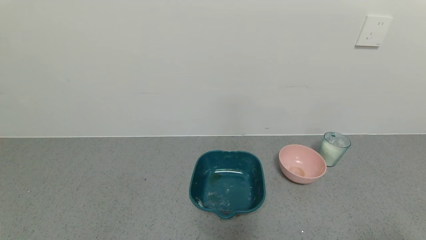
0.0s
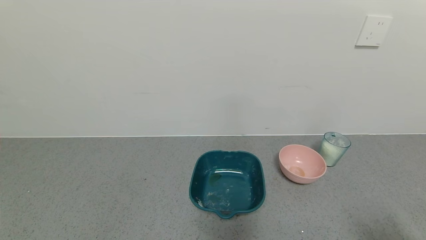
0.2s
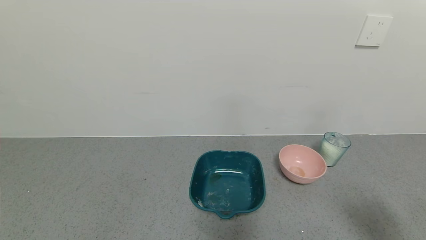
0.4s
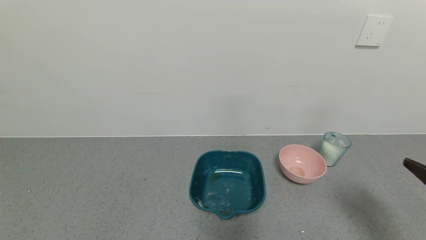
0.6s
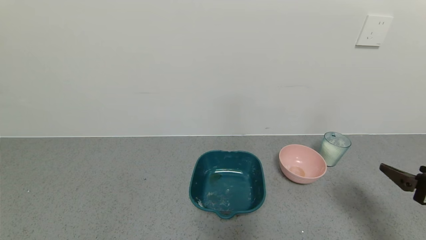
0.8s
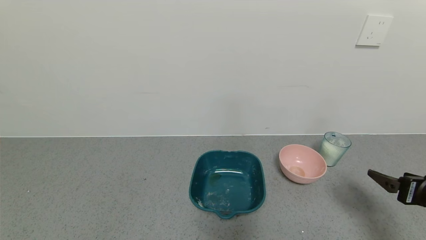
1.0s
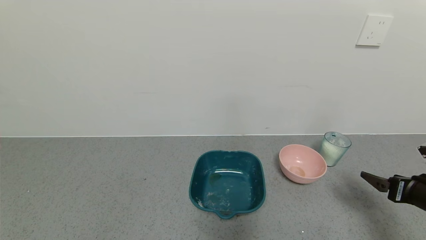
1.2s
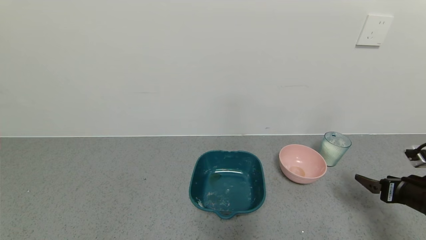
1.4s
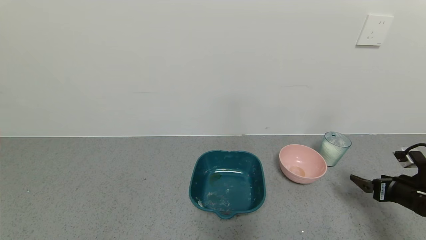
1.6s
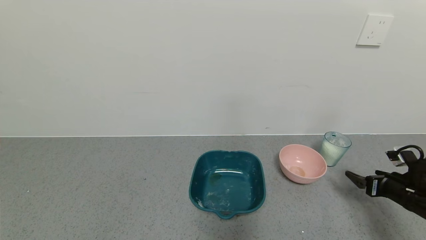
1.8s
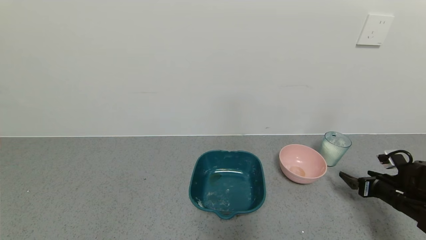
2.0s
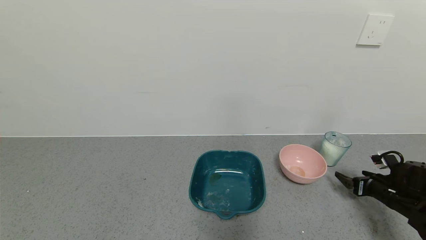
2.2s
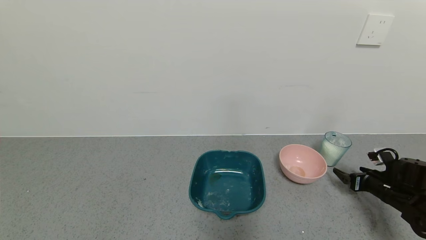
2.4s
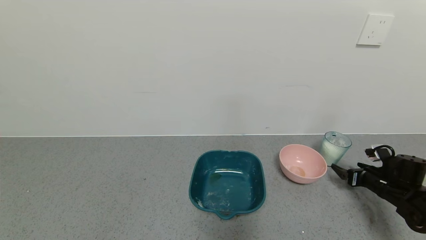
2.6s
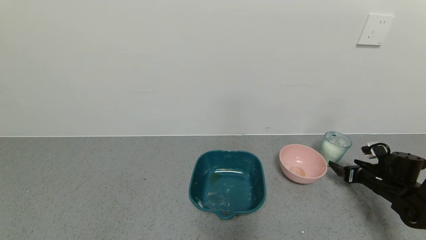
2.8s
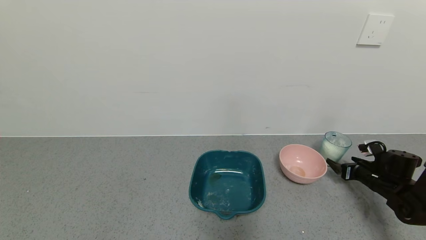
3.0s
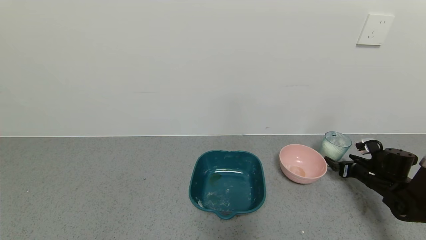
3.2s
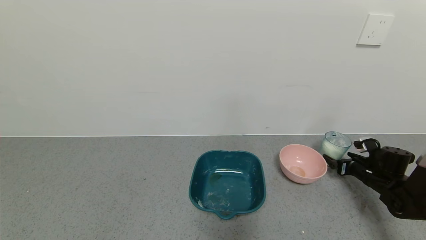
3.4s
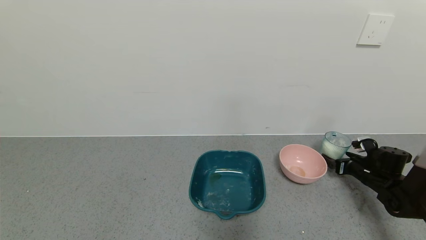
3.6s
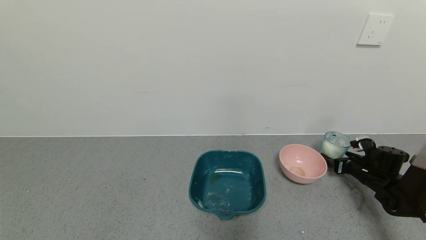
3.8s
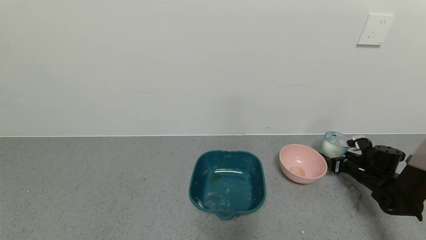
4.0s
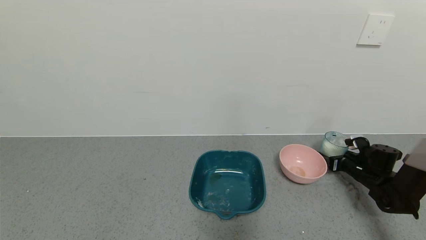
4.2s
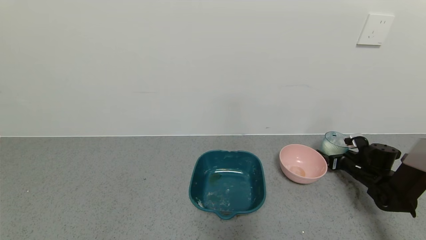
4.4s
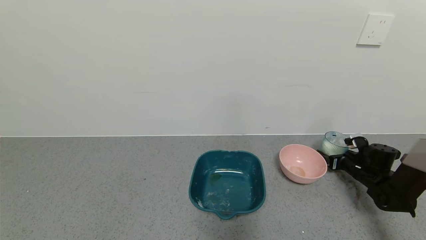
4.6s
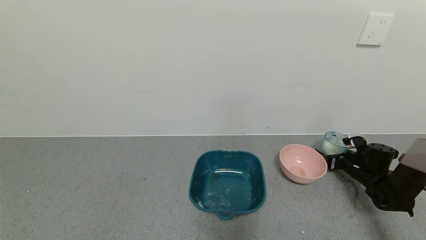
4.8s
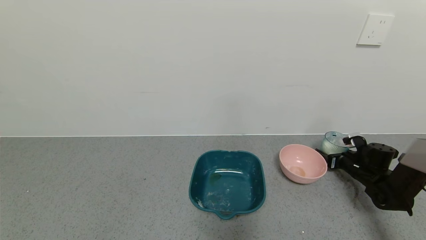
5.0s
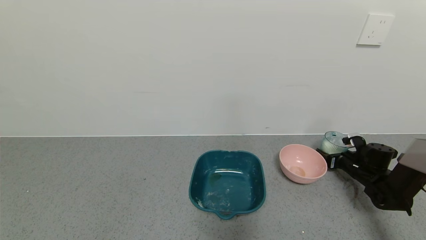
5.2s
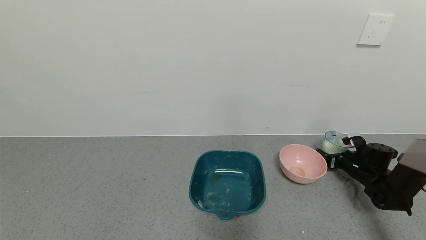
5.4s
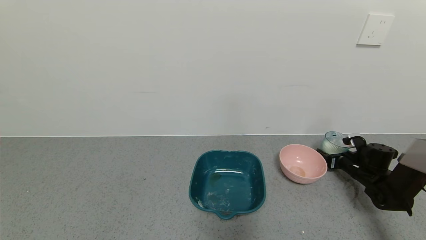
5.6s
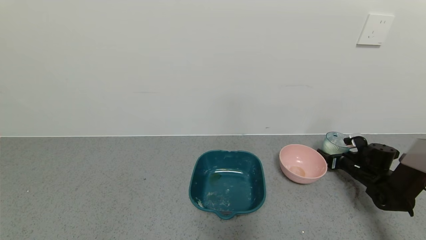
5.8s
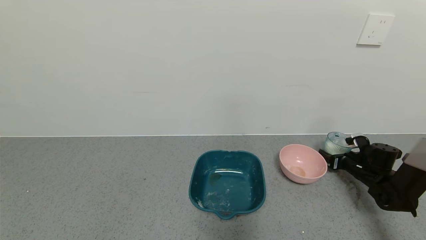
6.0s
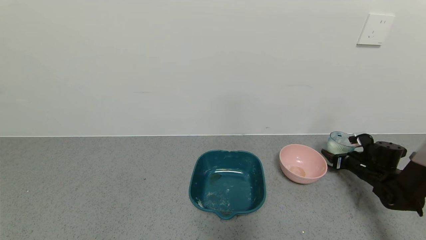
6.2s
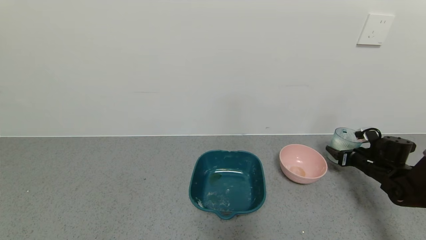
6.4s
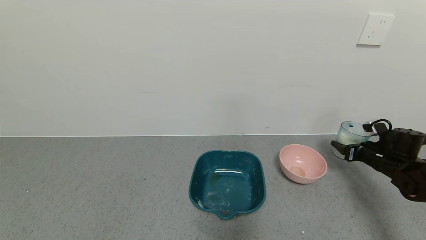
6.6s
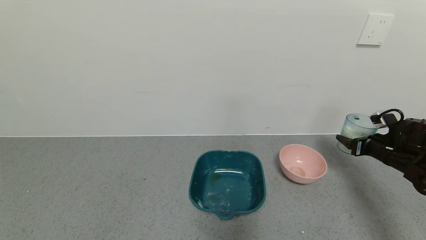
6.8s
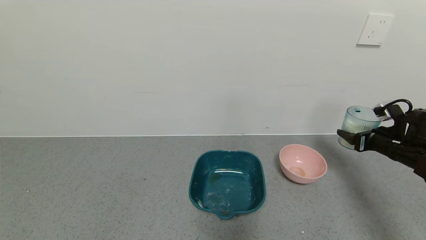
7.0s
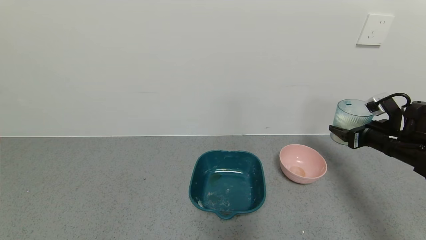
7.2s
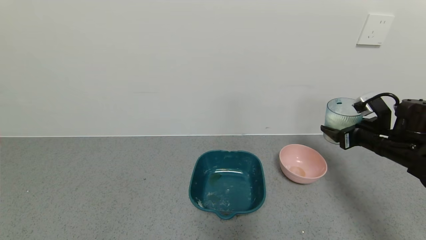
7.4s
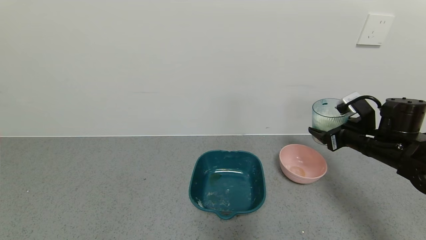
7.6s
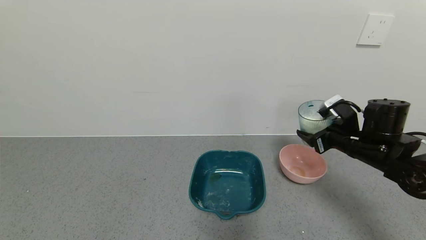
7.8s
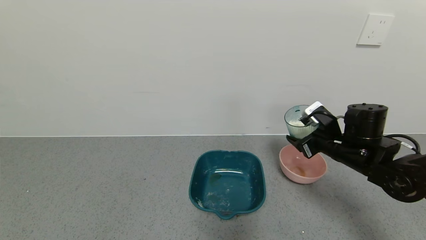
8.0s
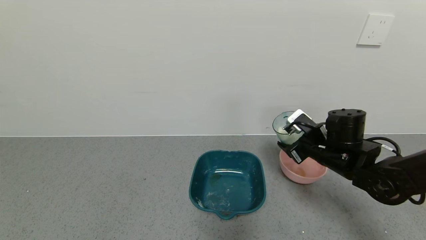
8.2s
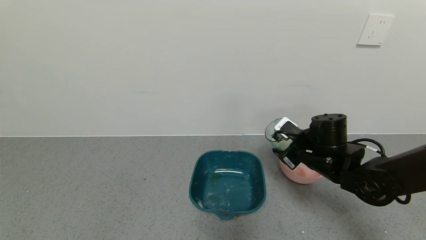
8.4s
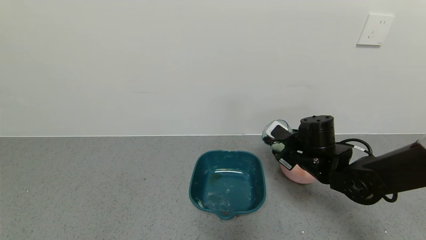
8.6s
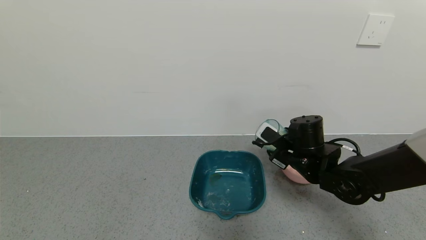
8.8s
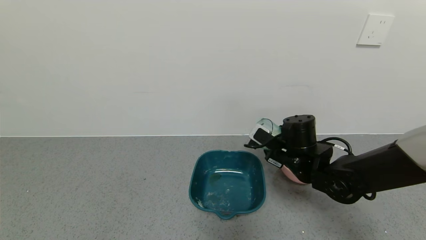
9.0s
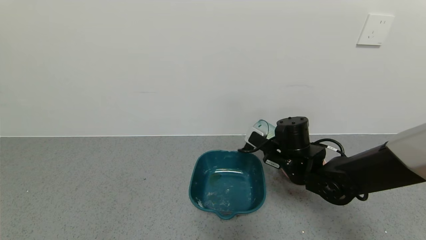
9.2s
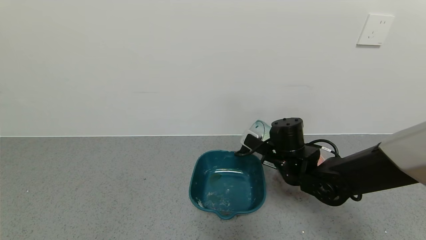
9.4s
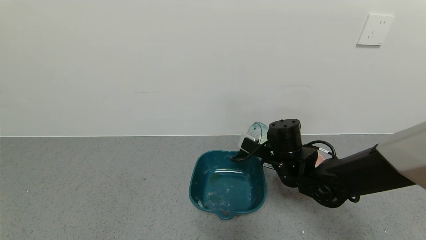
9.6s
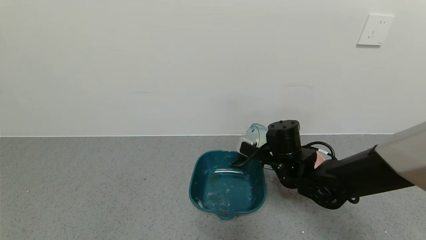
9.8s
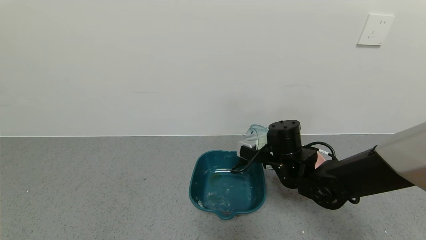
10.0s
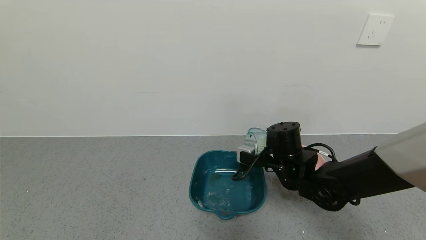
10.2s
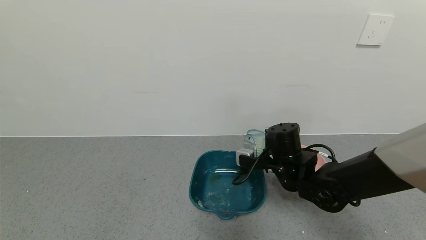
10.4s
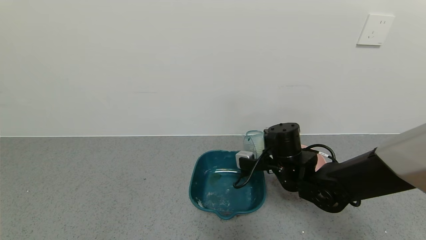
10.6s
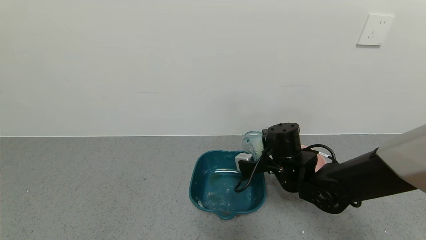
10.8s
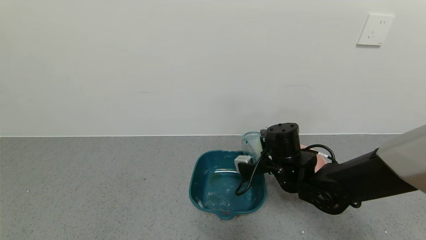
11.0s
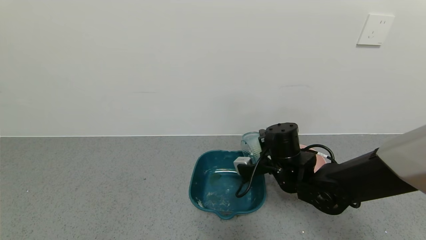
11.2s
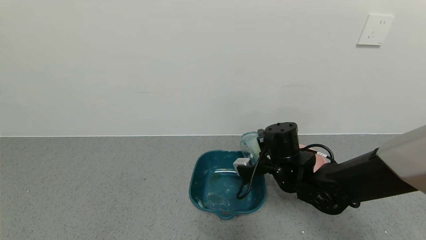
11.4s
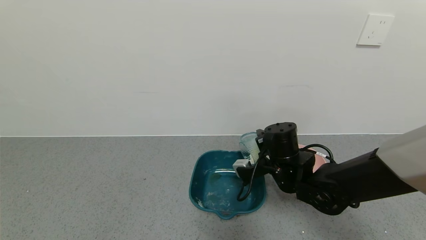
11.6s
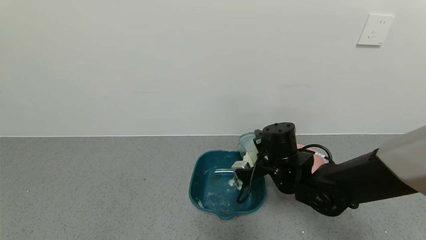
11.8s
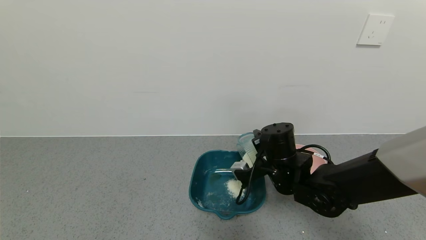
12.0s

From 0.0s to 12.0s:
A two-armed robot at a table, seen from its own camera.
Task of the whole recording: use a gripper to pick up the cup and pour the powder into a bowl or tray.
Step, from 0.0s to 5.2s: Grasp the glass of powder with the right gripper.
From 0.0s to 1.6s: The right gripper goes some 25 cm forward and downward.
From 1.6s to 3.0s: The right gripper moves forward and downward, approximately 10 cm.
From 3.0s to 4.4s: The grippers make only small movements.
From 6.0s to 7.6s: The right gripper shifts approximately 20 cm upward, to the left and backward.
From 7.6s to 9.0s: The right gripper is displaced to the left by roughly 15 cm.

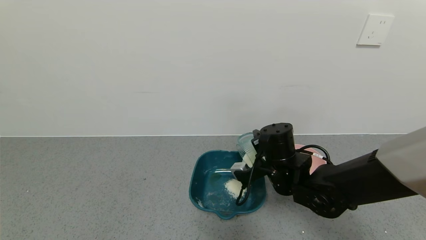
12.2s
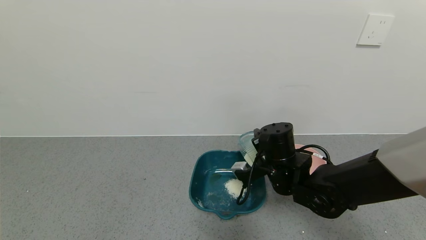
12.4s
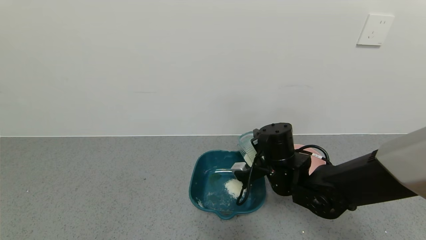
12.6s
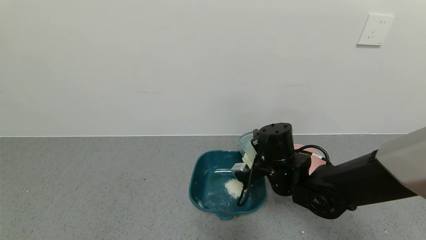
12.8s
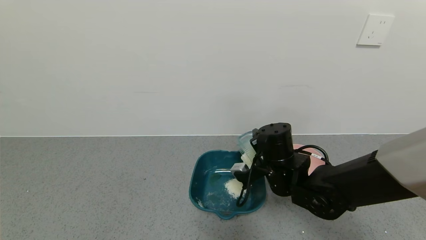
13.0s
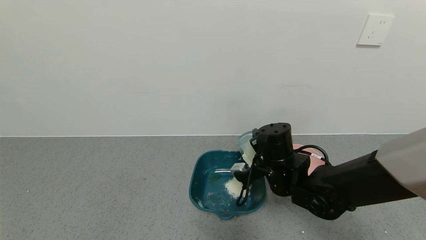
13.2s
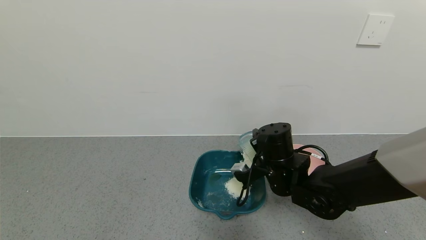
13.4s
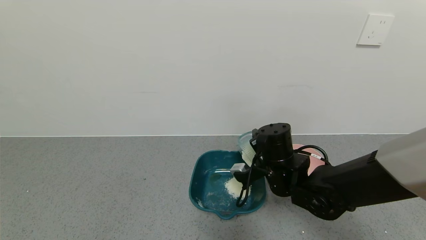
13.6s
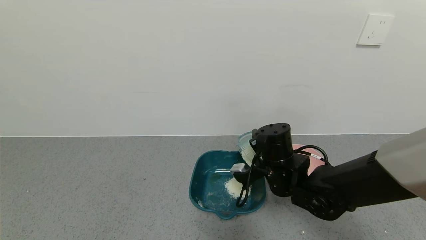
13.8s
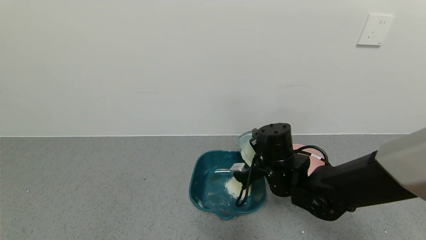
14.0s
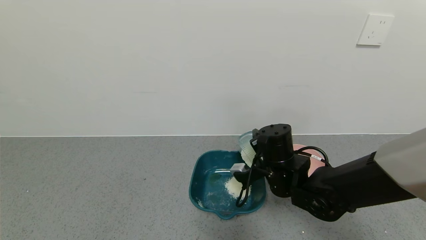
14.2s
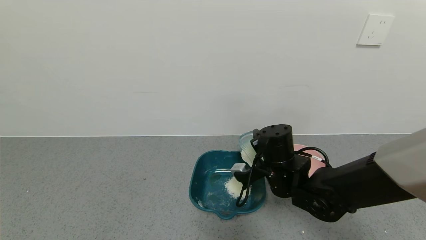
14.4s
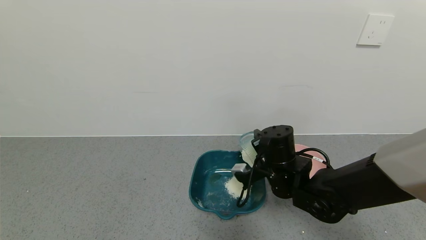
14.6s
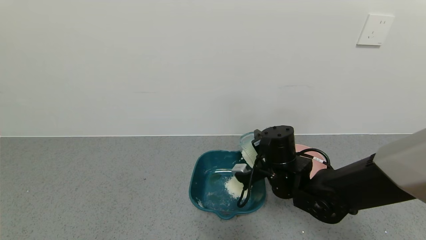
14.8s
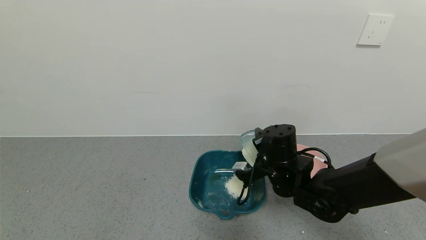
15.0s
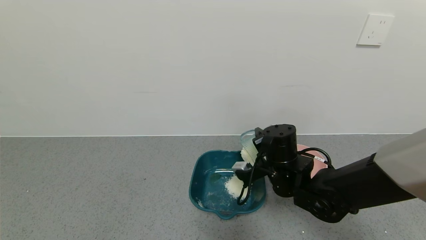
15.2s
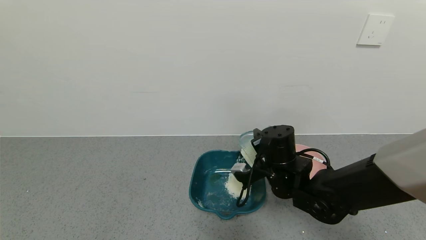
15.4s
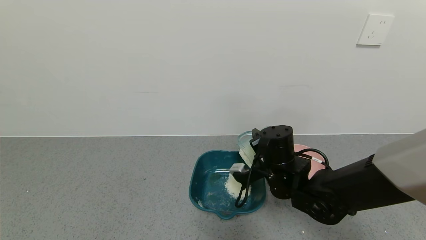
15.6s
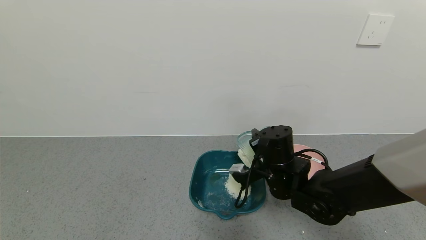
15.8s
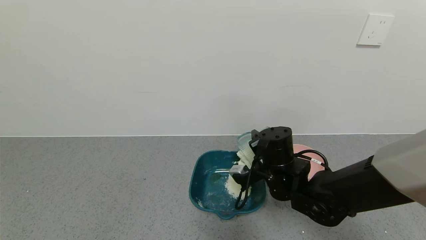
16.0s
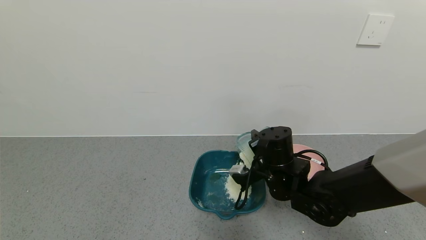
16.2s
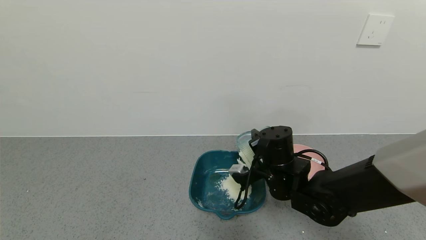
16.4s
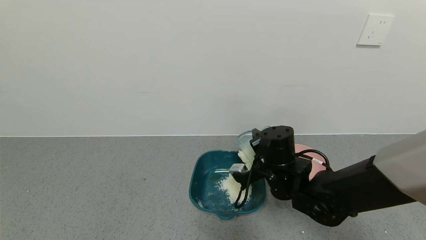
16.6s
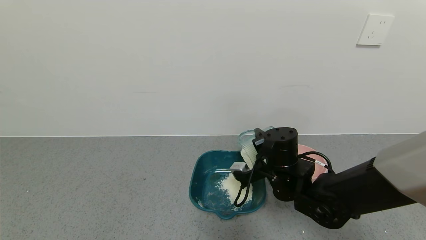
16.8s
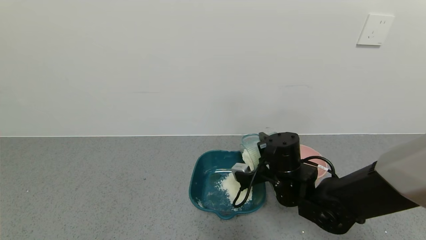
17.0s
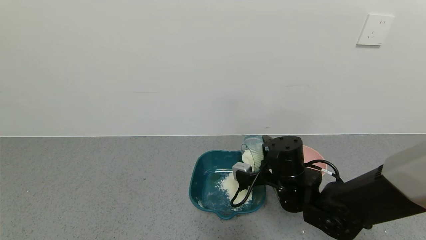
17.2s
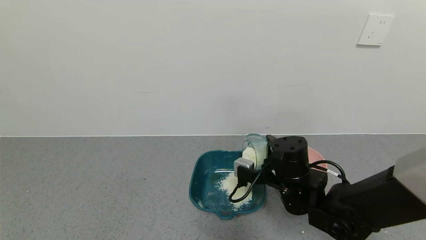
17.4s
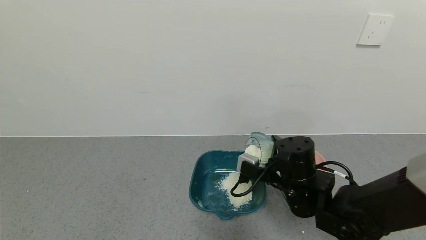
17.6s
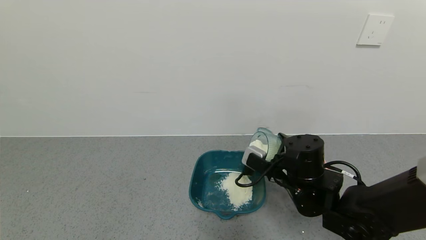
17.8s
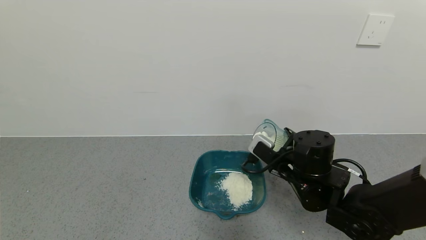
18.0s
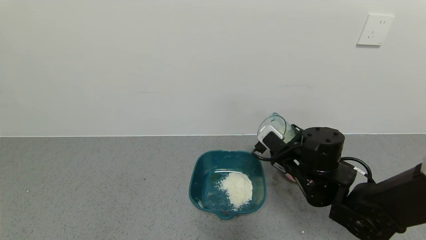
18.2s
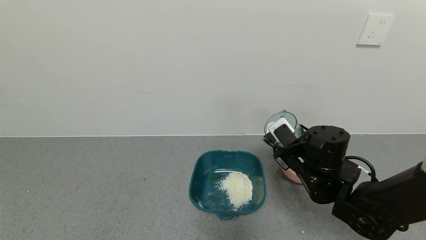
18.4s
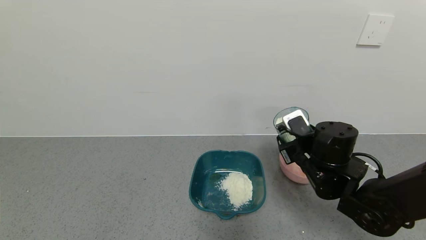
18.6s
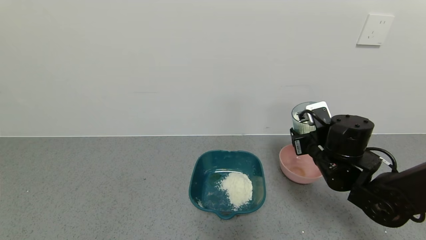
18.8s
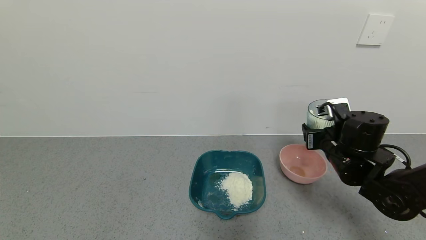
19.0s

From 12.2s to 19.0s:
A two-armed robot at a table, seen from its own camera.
Task of the whole recording: use a gripper to pick up the cup and pour the powder into a bowl or tray.
From 12.2s to 16.2s: Neither gripper changes place.
From 17.6s to 19.0s: The right gripper is displaced to the right by some 10 cm.
